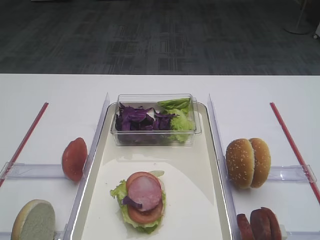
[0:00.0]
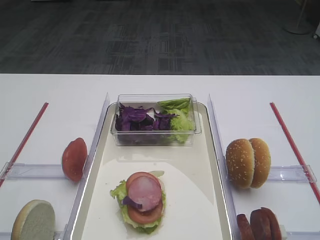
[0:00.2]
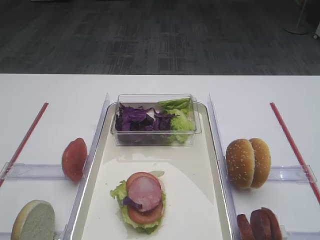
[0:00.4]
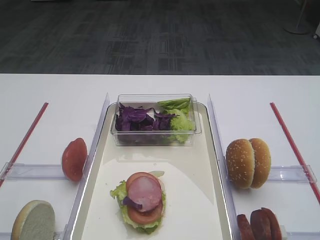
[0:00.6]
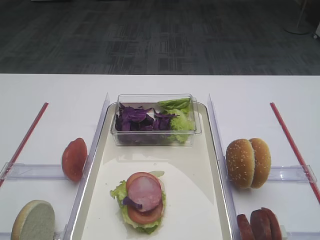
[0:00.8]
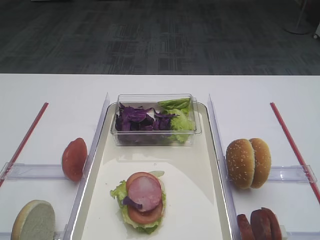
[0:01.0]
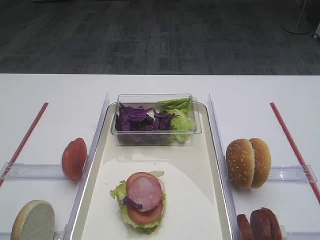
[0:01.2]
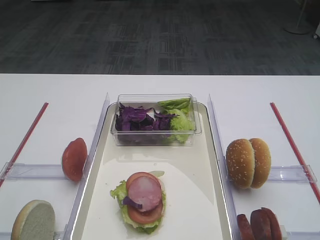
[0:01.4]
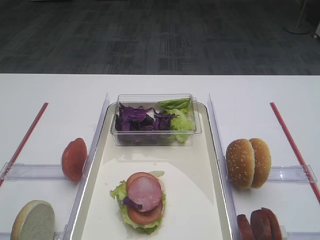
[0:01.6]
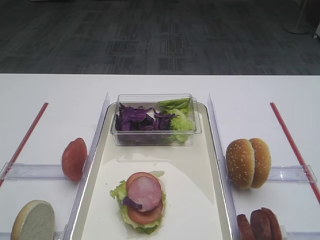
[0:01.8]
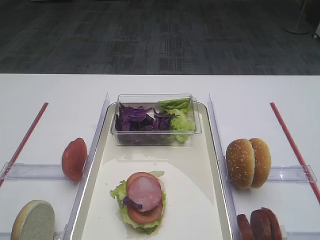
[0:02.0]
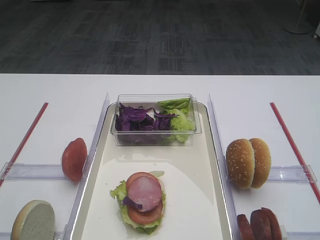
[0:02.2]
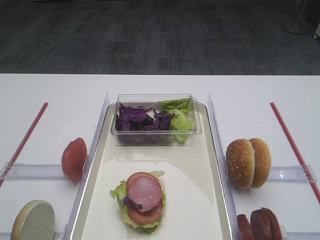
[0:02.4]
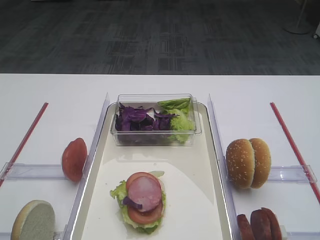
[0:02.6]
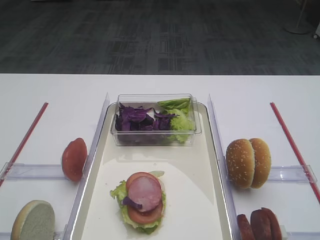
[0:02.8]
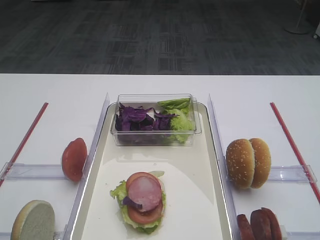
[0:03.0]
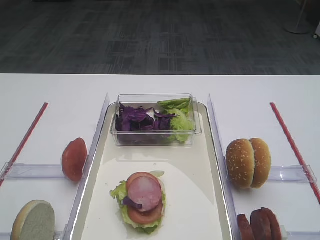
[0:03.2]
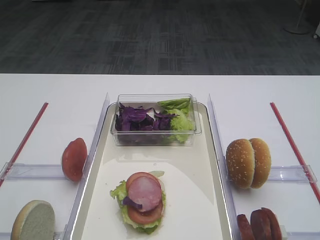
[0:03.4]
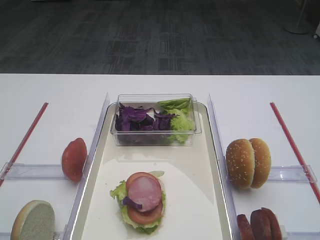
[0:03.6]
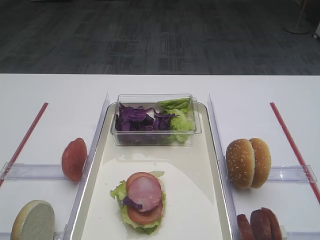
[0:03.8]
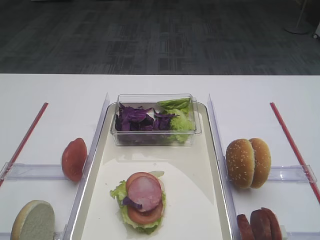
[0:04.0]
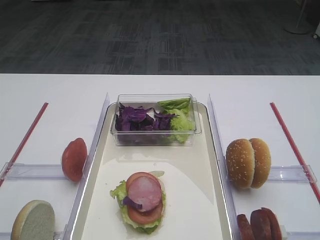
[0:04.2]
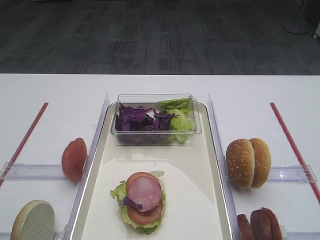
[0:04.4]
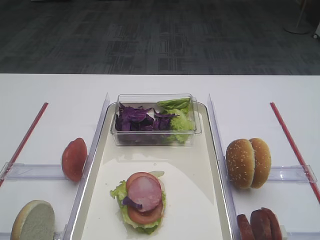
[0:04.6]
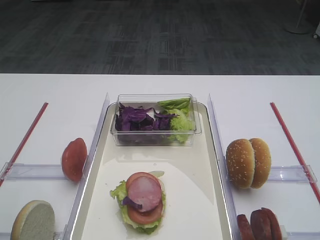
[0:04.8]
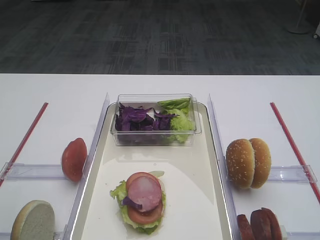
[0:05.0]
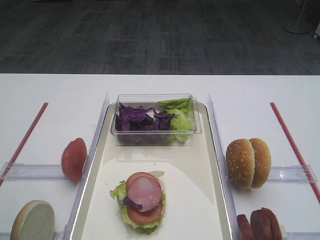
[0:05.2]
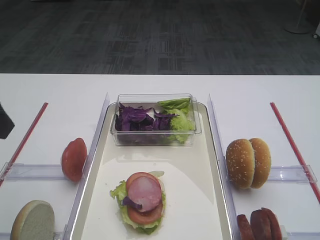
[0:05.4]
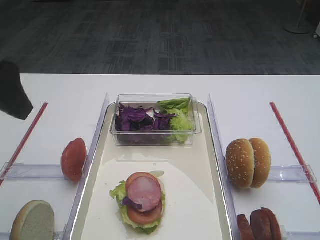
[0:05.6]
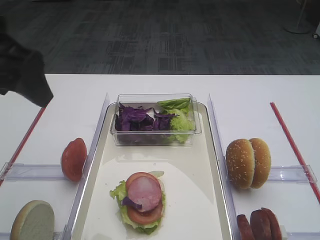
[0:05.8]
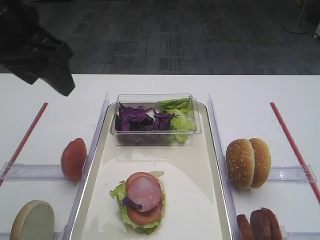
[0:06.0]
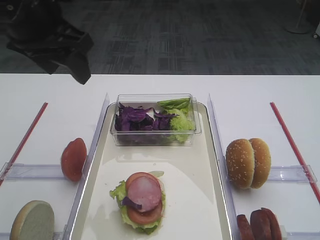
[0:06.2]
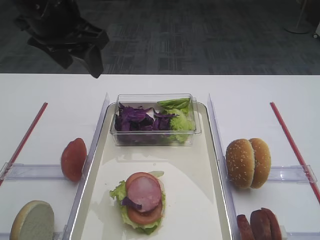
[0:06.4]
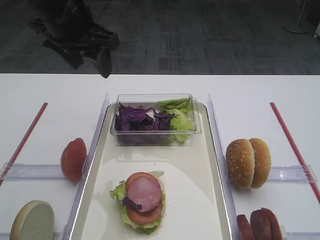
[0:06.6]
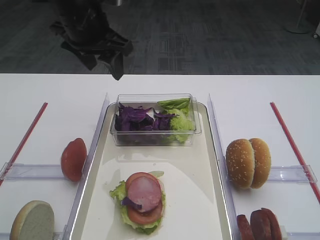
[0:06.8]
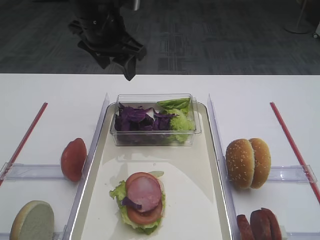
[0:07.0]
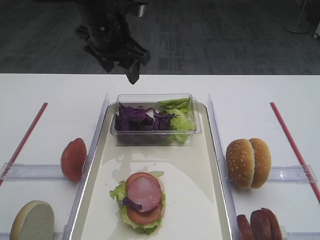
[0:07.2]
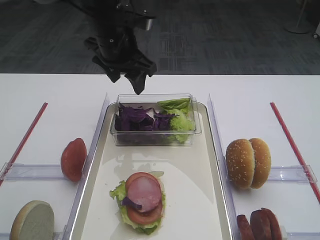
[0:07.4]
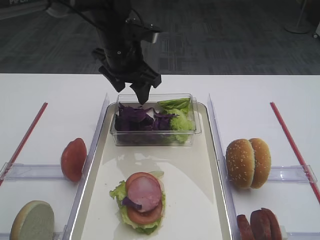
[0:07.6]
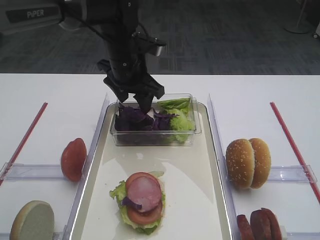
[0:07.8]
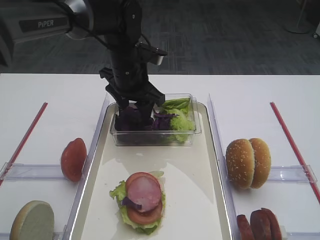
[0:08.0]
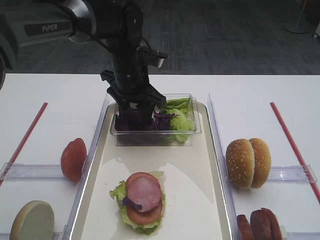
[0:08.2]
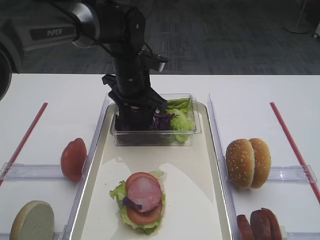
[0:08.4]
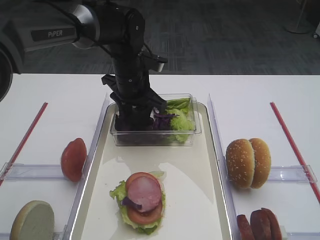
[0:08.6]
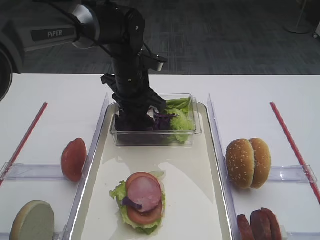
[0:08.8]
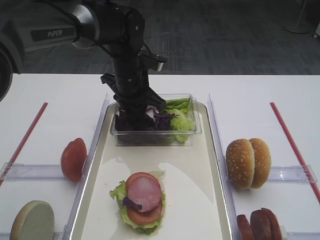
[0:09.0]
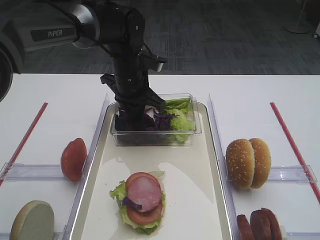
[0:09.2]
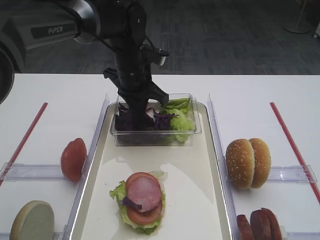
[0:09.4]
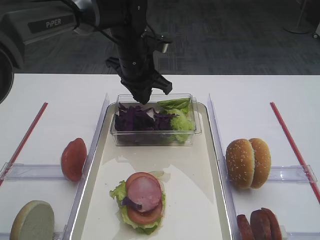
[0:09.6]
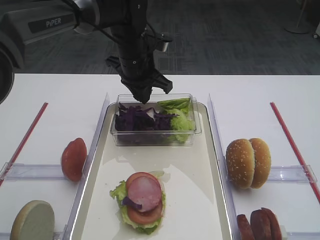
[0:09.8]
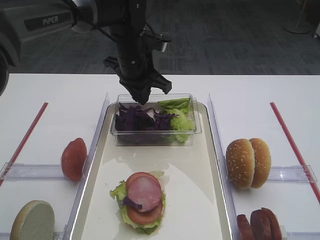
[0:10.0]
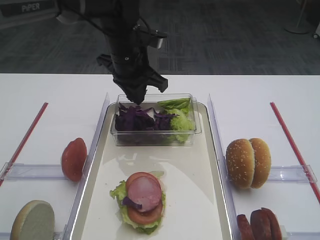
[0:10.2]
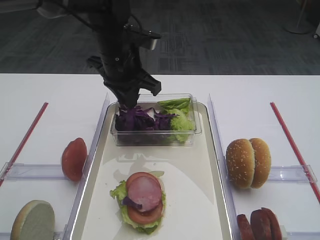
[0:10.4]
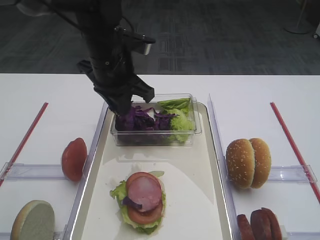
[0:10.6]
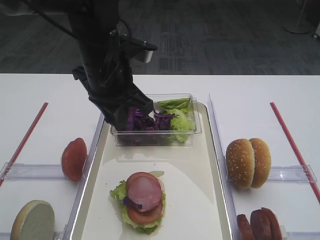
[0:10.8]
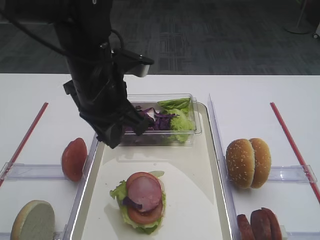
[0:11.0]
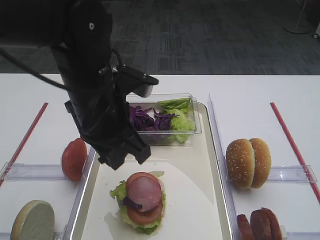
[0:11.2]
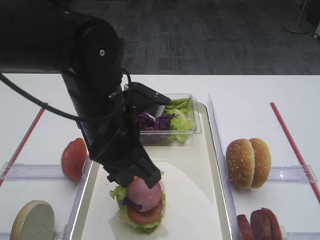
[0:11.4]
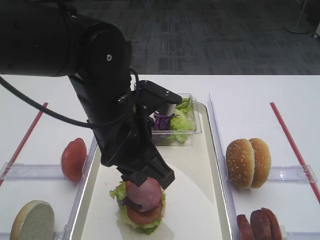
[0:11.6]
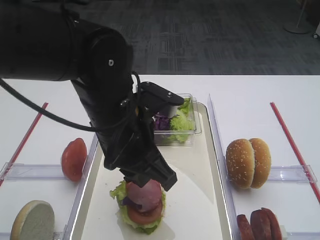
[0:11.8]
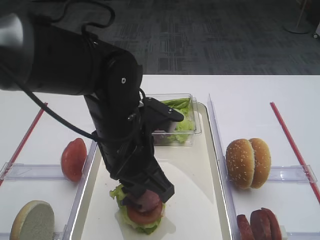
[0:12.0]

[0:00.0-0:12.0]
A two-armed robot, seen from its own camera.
Step, 0:00.0 to 0:09.6: Pick up the purple cabbage with the left gripper.
0:01.6 to 0:03.0: Both grippers stay about where they are.
0:04.4 to 0:06.0: The left gripper is displaced forward by roughly 25 cm.
0:06.0 to 0:07.6: The left gripper travels forward, to the right and downward by some 20 cm.
0:07.6 to 0:09.0: The left gripper travels downward by roughly 5 cm, and closes its fingers.
0:09.0 to 0:10.4: The left gripper travels upward by roughly 5 cm.
0:10.4 to 0:12.0: The left gripper shifts about 15 cm backward.

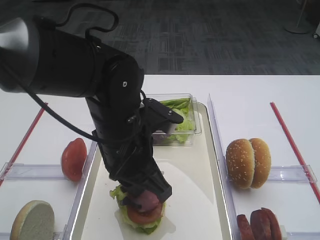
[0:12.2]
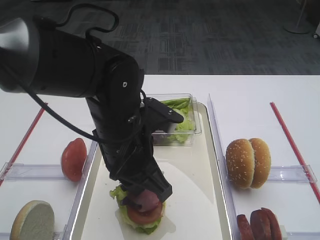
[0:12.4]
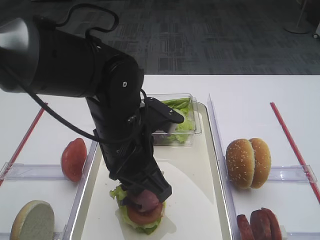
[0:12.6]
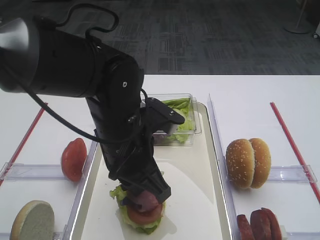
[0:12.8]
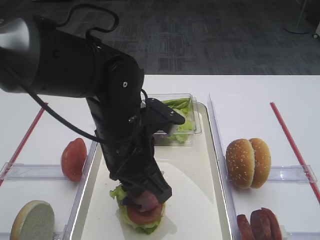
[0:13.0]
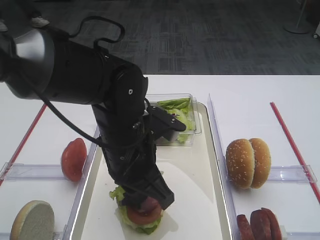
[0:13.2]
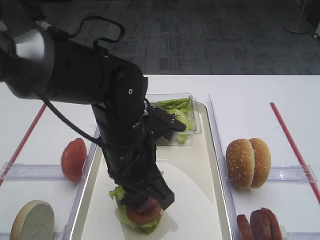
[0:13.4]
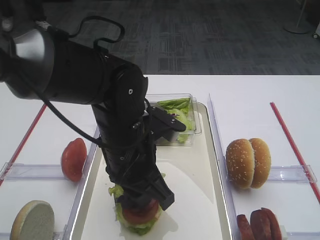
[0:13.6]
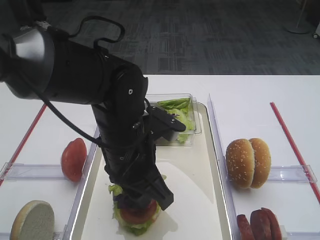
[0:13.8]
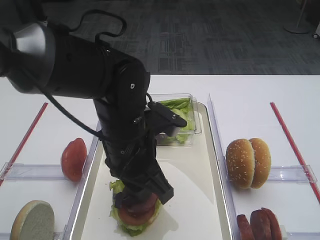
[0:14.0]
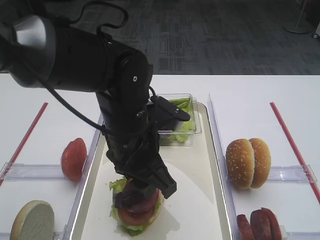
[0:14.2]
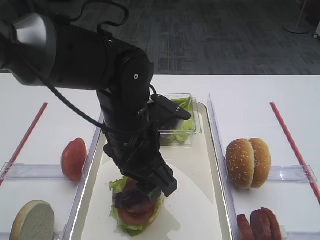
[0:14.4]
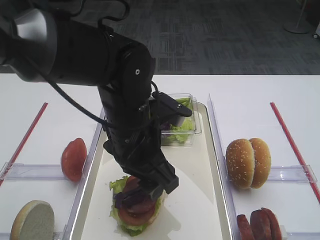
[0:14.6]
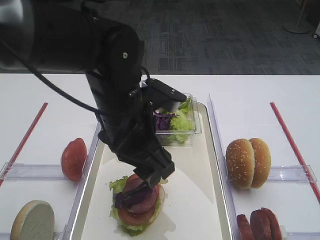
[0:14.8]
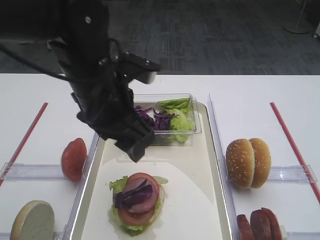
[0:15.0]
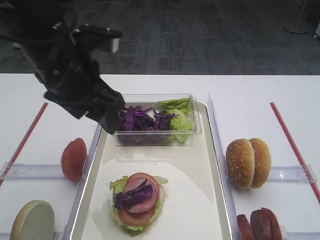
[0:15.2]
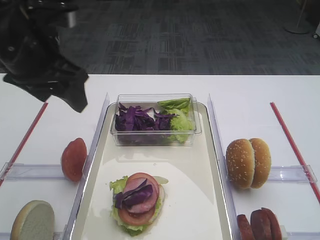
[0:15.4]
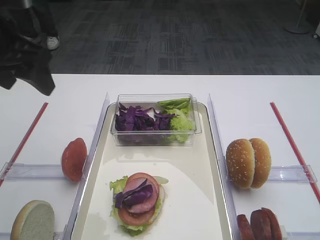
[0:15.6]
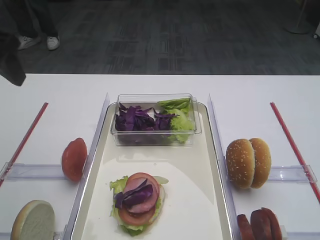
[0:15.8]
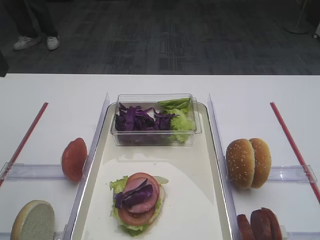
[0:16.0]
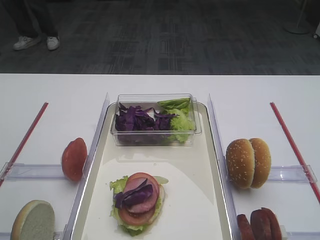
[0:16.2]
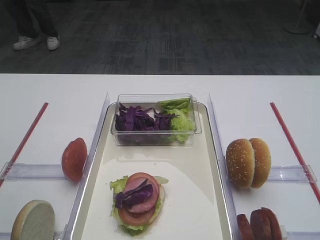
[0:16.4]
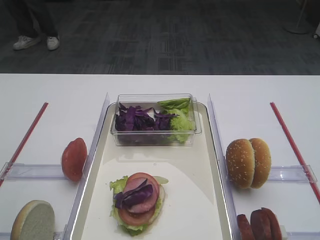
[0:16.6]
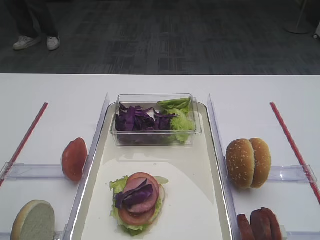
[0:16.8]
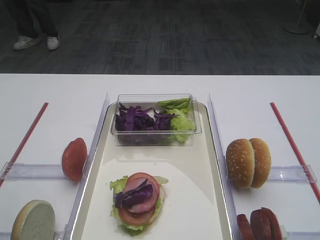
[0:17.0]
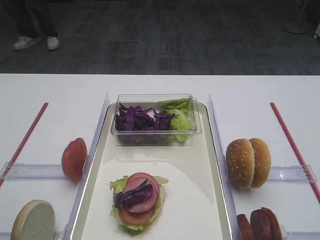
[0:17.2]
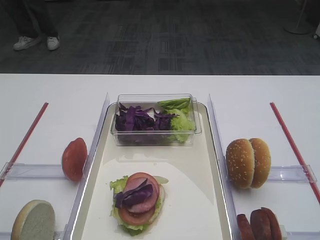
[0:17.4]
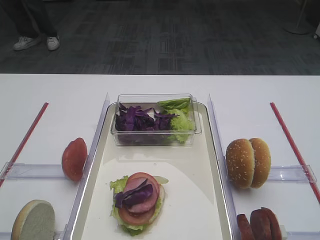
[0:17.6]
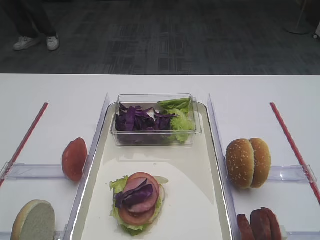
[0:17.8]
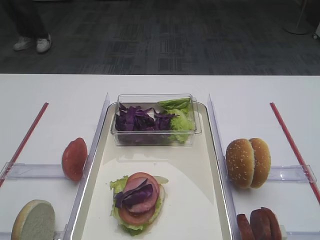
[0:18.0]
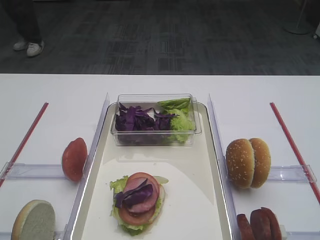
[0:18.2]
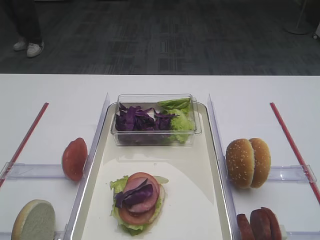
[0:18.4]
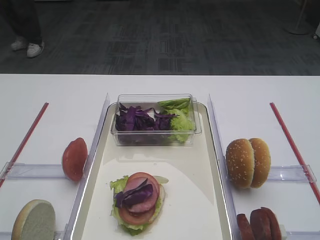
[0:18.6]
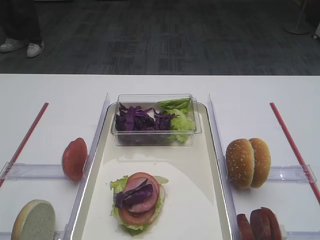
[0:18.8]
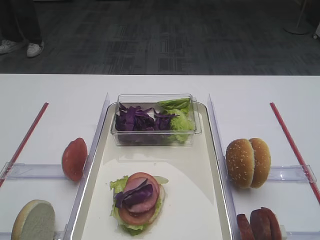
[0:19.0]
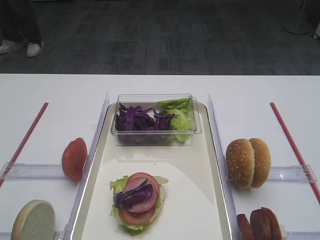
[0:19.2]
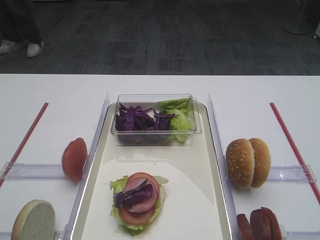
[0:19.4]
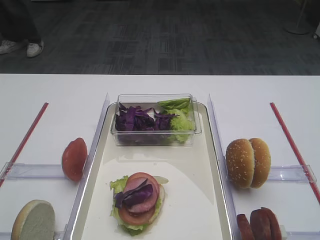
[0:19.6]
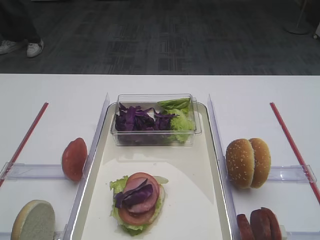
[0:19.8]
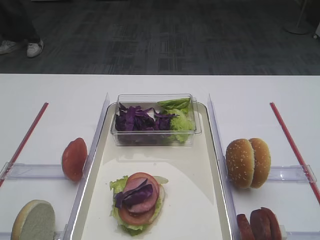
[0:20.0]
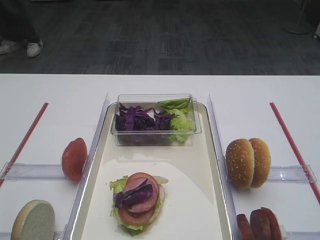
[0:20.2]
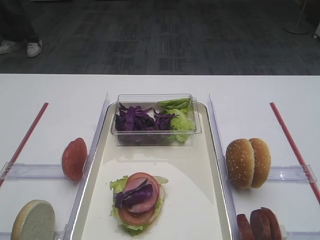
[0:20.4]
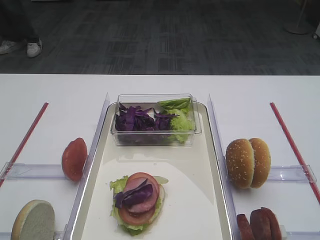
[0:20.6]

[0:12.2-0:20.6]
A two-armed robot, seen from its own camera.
Step, 0:12.2 to 0:15.2: Place the purple cabbage on the cutlet with the left gripper.
0:12.2 to 0:13.6: The left gripper opens.
0:13.6 to 0:15.0: The left gripper heads upward, covering roughly 5 cm, and opens up.
0:15.0 to 0:16.4: The left gripper moves to the left and upward, roughly 25 cm.
0:19.2 to 0:20.6: Neither gripper changes place.

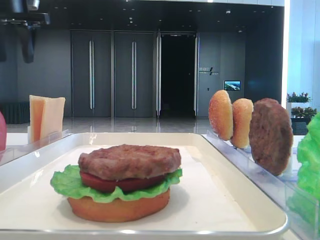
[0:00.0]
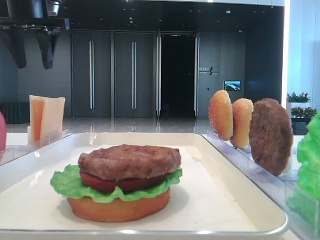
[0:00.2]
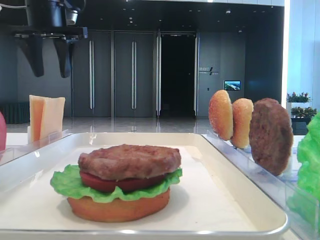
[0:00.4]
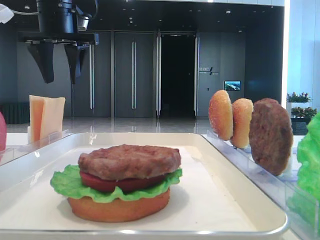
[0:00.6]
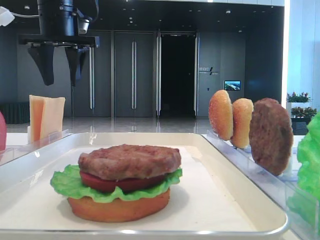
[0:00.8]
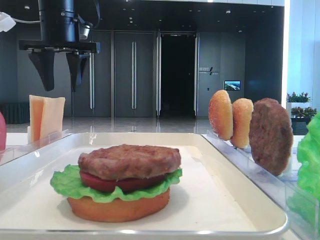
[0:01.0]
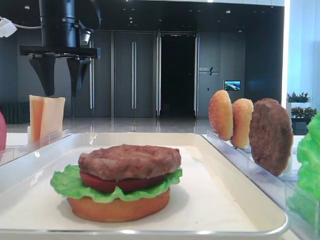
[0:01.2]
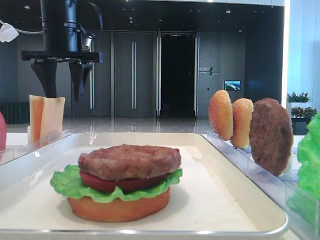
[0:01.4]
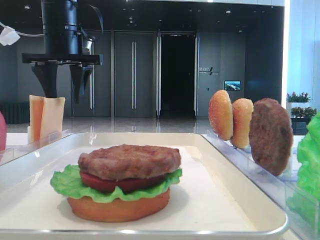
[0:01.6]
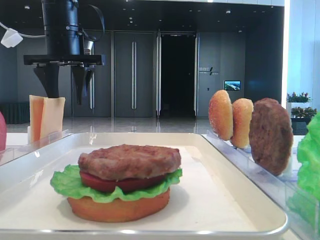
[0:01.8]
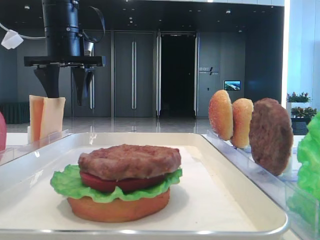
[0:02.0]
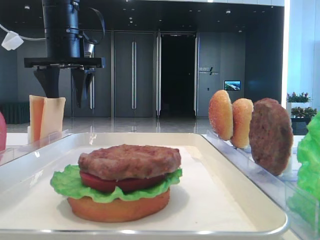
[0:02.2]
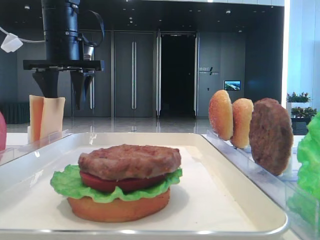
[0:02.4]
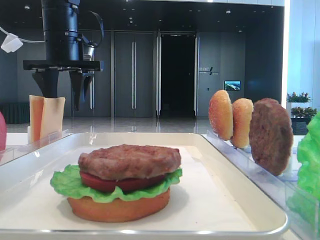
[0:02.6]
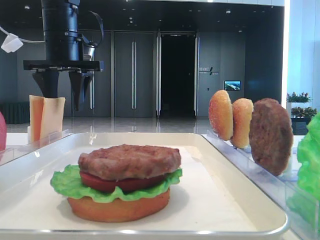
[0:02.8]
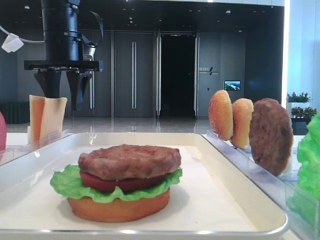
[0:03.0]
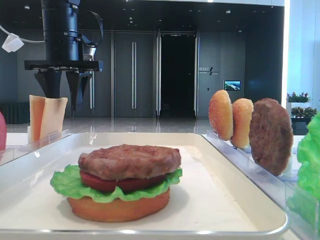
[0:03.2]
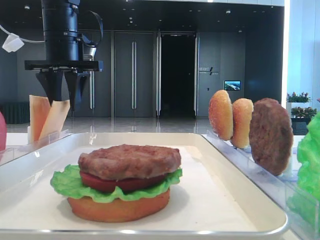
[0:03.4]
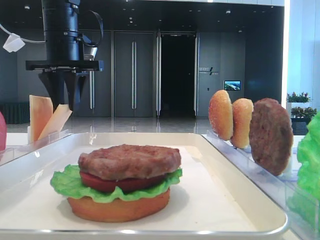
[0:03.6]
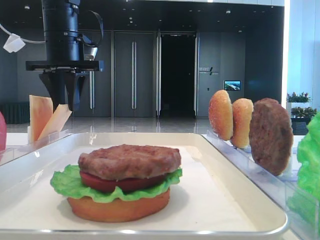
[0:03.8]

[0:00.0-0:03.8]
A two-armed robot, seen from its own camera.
0:00.0 to 0:01.2: The left gripper goes some 10 cm to the right and downward.
0:01.2 to 0:02.6: The grippers stay close to where they were, moving slightly.
0:02.6 to 0:03.8: The left gripper closes.
